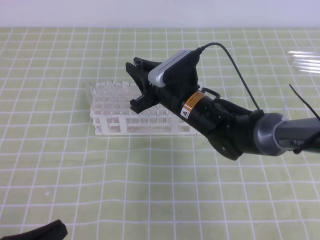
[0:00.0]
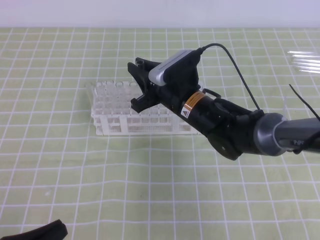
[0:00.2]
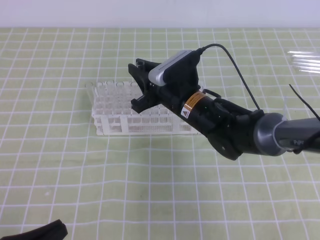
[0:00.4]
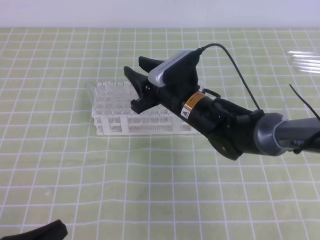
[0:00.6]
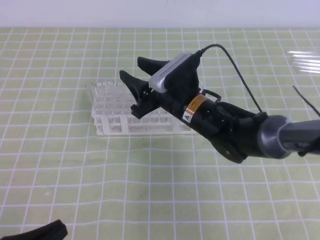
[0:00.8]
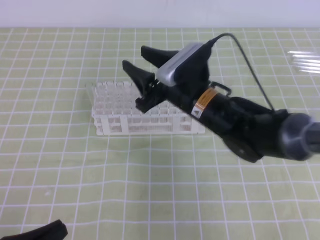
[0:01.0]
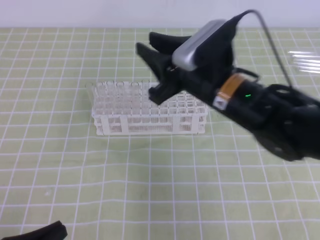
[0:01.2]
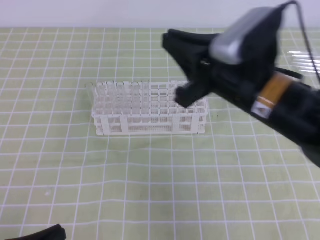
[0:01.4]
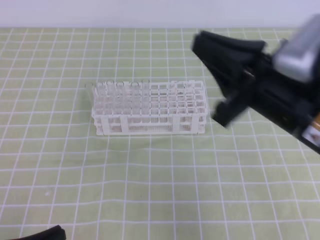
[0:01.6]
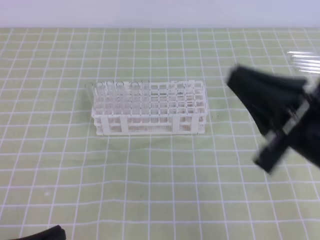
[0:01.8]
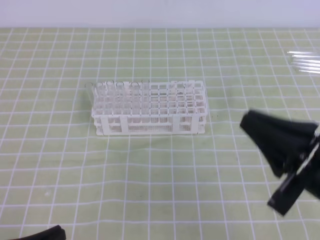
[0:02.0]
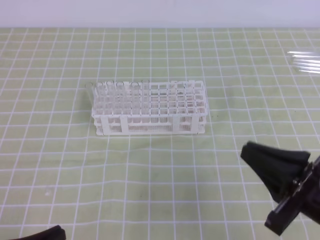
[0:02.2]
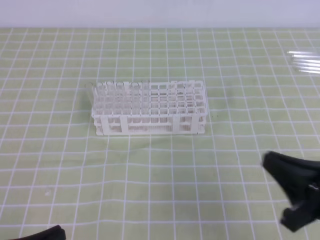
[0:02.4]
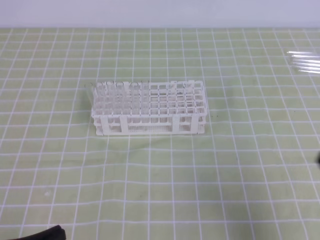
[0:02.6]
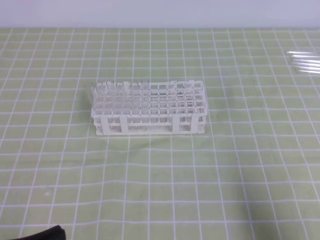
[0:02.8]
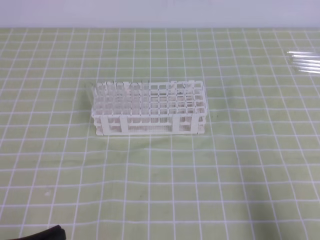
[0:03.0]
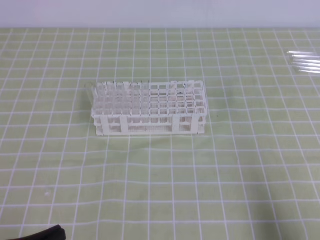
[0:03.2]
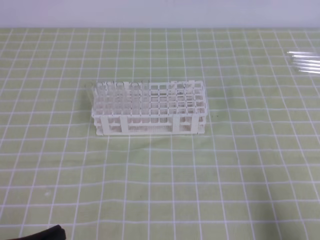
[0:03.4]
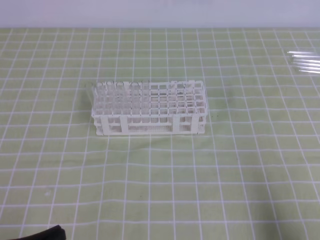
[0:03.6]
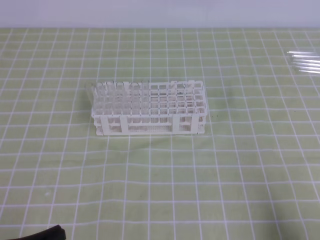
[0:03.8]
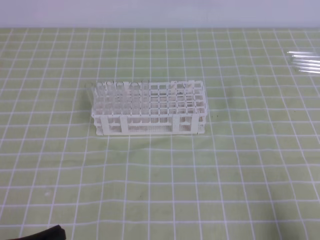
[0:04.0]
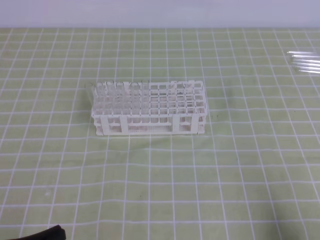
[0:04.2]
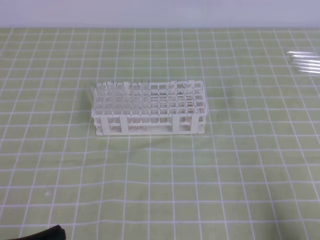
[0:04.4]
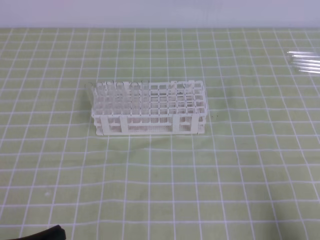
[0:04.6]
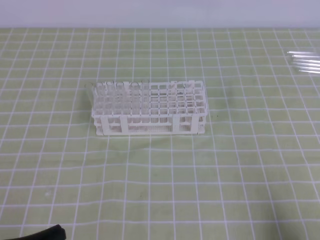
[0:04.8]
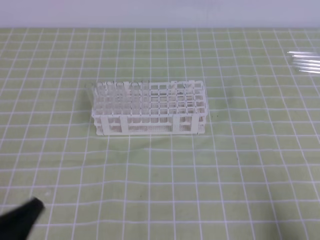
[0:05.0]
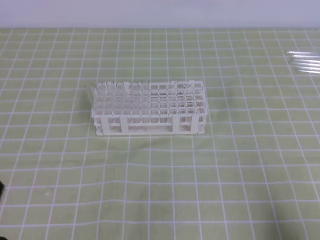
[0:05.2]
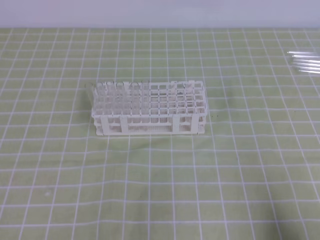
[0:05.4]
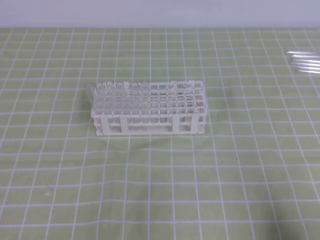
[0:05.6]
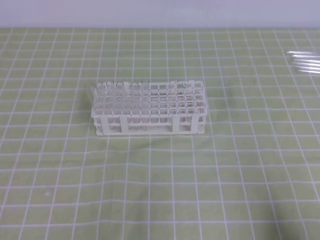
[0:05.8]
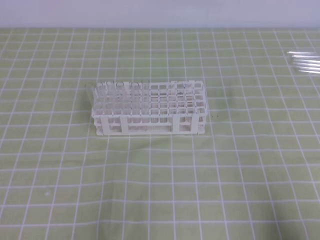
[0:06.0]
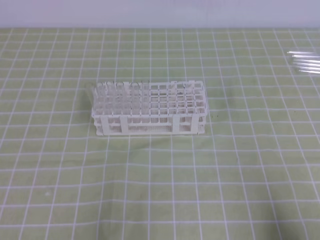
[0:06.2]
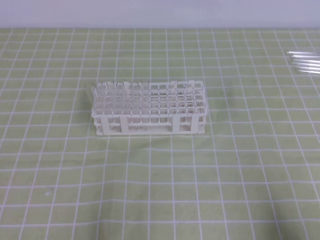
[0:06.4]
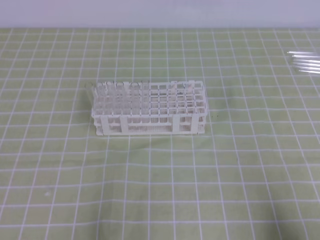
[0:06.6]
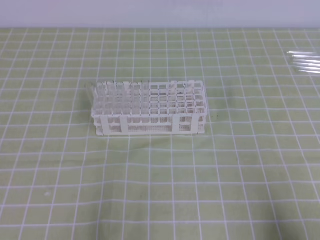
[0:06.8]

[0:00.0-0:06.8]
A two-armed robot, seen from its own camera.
0:00.0 to 0:01.4: The right gripper moves upward, backward and to the right, roughly 15 cm, and opens, then closes again.
0:01.4 to 0:02.8: The right gripper is displaced to the right, backward and downward by approximately 25 cm.
0:02.8 to 0:04.0: The right gripper shifts by some 5 cm.

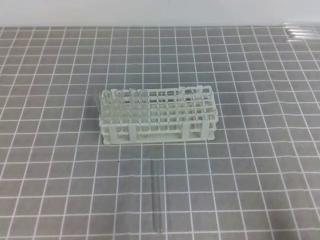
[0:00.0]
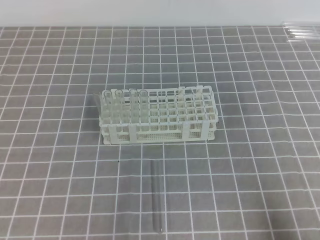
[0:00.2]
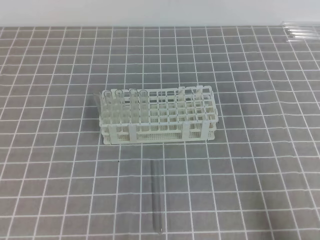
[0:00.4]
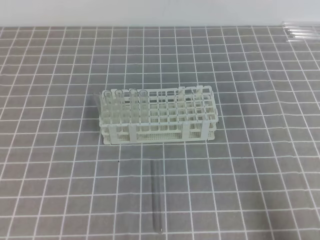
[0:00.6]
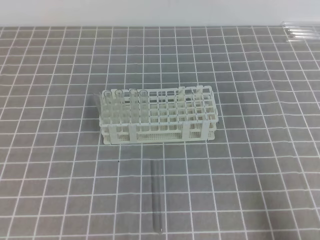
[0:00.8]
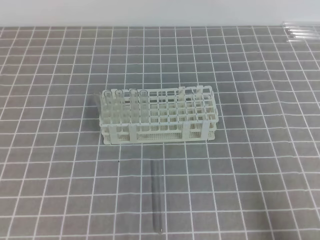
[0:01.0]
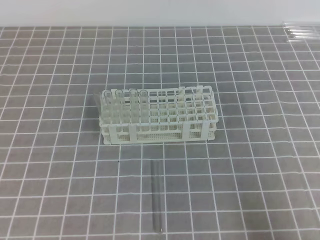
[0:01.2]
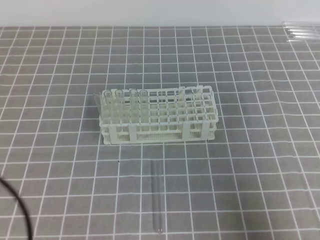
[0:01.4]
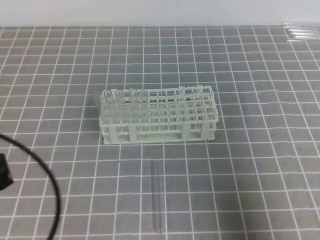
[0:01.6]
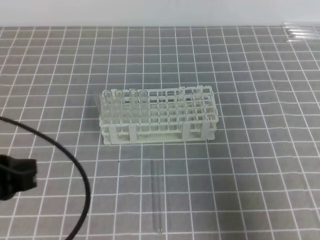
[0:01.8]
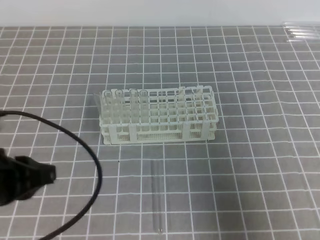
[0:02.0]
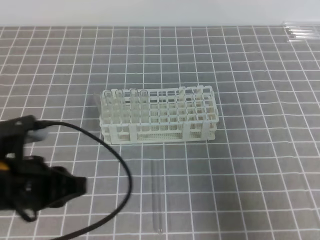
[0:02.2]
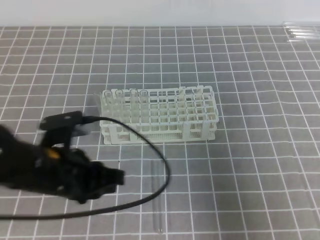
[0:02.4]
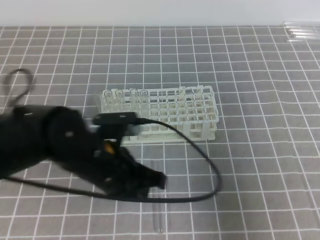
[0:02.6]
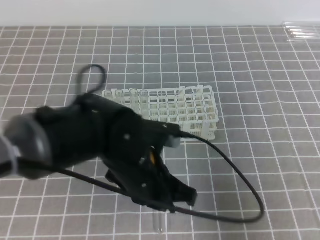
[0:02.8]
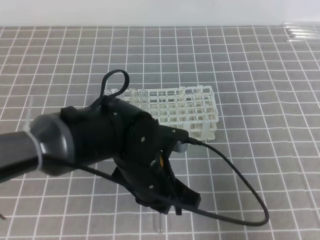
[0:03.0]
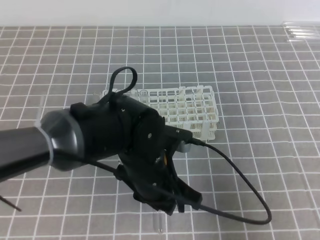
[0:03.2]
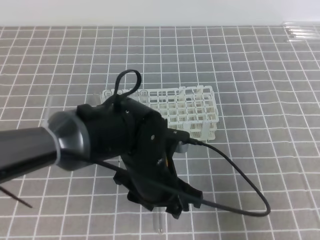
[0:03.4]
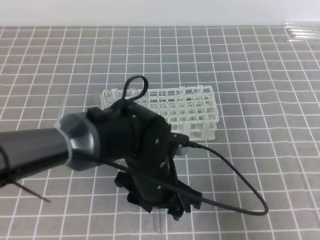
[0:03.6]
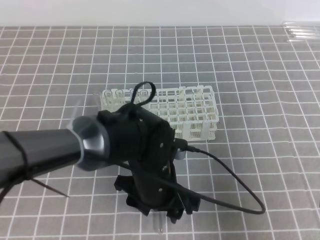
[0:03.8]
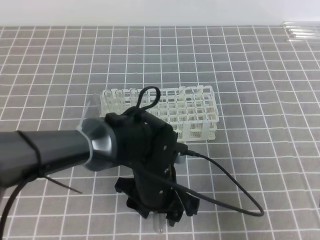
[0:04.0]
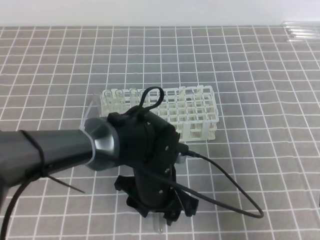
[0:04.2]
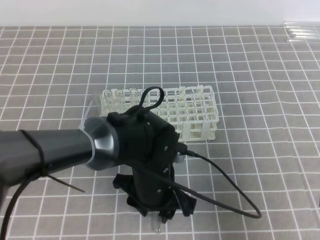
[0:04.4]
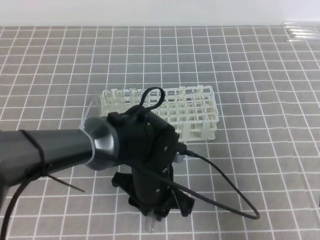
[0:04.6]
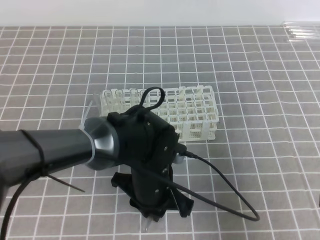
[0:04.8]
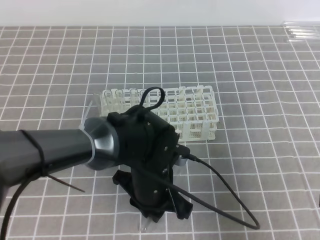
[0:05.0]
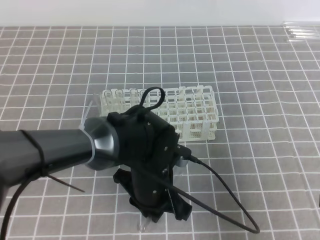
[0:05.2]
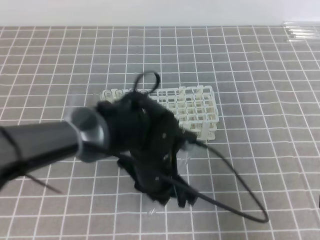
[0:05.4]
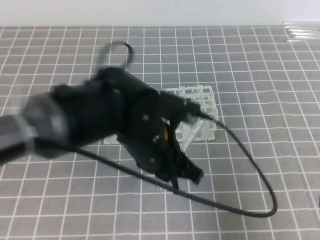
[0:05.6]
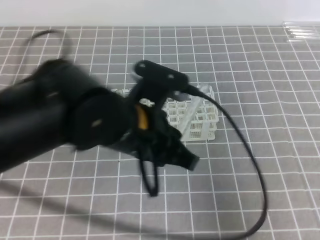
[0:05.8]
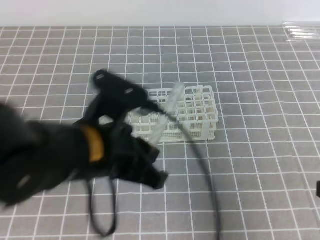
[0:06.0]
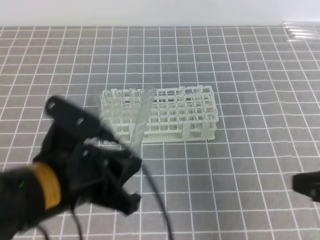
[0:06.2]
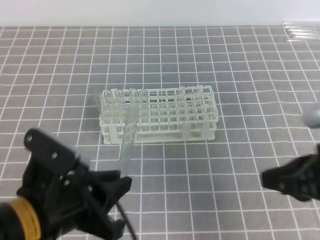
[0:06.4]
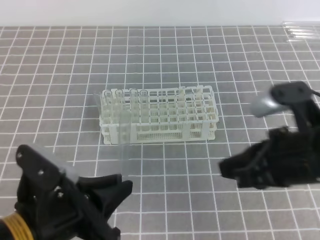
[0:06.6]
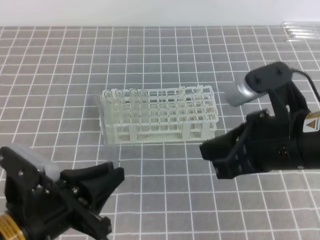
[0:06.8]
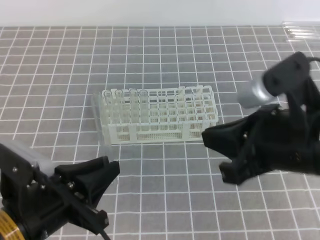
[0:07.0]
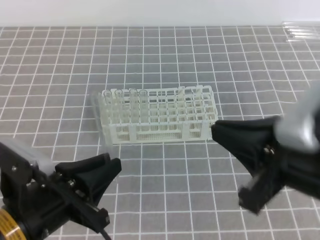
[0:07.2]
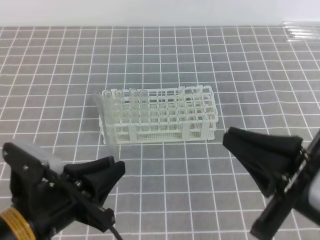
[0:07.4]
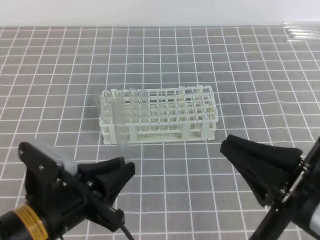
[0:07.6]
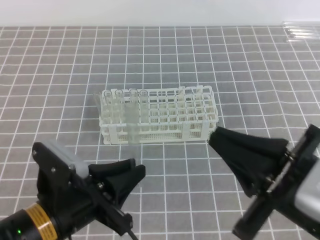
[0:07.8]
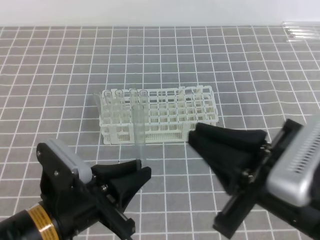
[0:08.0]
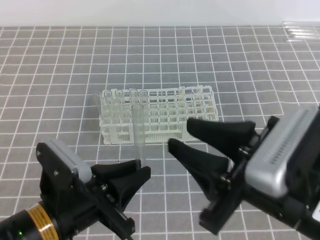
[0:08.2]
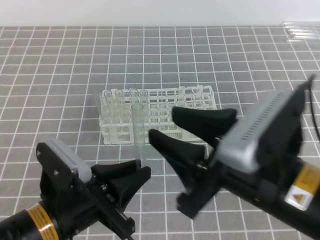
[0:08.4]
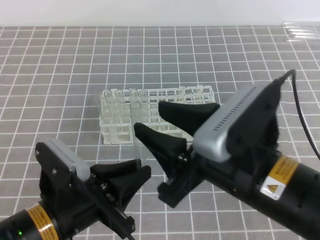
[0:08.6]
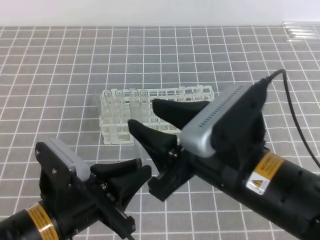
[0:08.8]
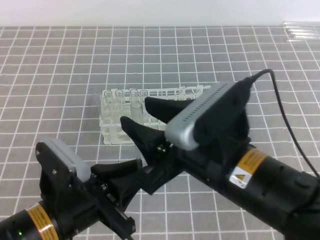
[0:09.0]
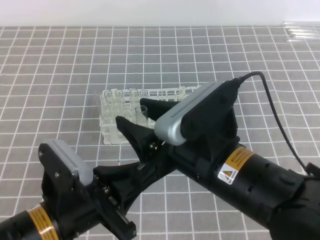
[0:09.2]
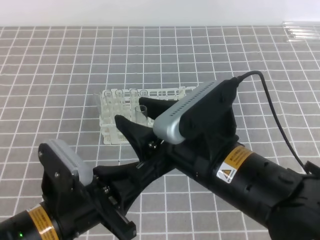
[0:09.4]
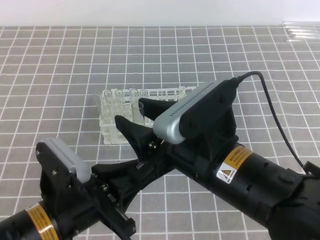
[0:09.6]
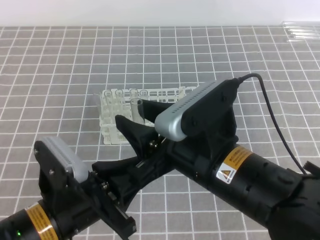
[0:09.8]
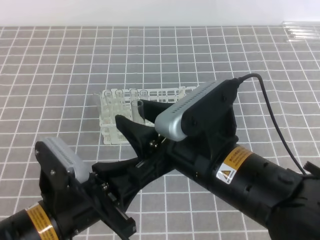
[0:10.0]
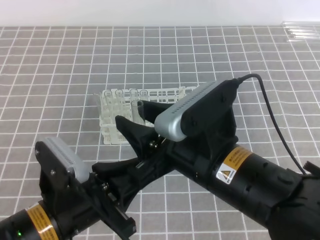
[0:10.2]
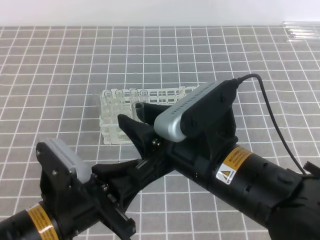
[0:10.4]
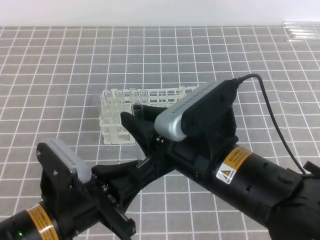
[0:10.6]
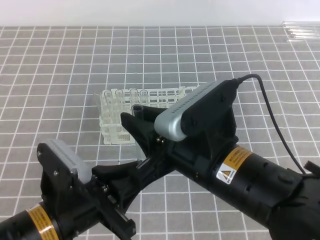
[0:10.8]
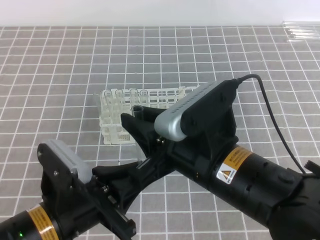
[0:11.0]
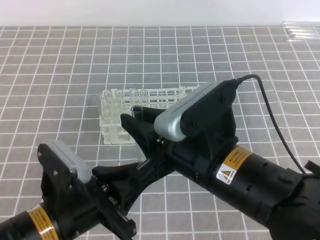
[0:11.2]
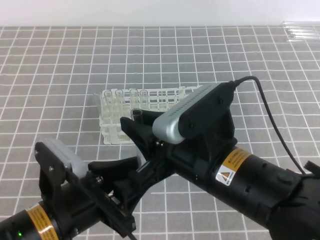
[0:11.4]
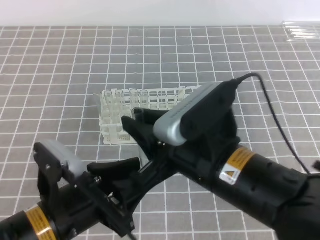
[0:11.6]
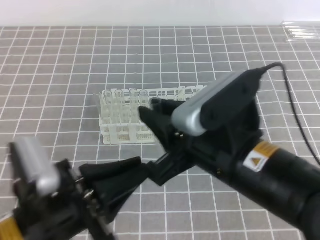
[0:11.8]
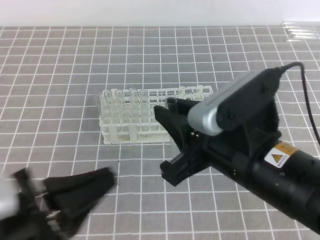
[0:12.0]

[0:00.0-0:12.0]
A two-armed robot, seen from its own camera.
0:00.0 to 0:01.6: The right gripper moves upward, approximately 10 cm. Meanwhile the left gripper travels upward and forward by about 10 cm.
0:01.6 to 0:03.0: The left gripper goes some 25 cm to the right and forward.
0:03.0 to 0:04.4: The left gripper heads downward, covering approximately 5 cm, and opens its fingers.
0:04.4 to 0:06.0: The left gripper goes approximately 15 cm upward and to the left, and closes.
0:06.0 to 0:07.6: The right gripper travels to the left by about 10 cm. Meanwhile the left gripper goes roughly 10 cm downward and to the left.
0:07.6 to 0:09.0: The right gripper is displaced to the left by about 10 cm, and opens up.
0:09.0 to 0:10.4: The grippers move only a little.
0:10.4 to 0:12.0: The right gripper closes up; the left gripper shifts by some 10 cm, and opens, then closes again.

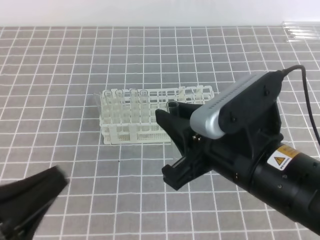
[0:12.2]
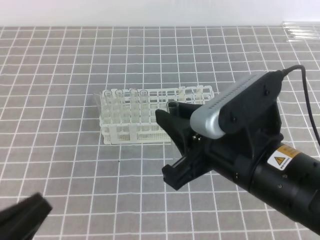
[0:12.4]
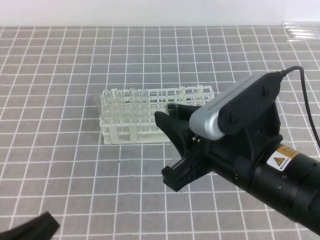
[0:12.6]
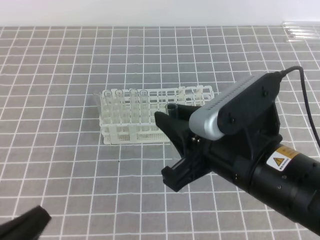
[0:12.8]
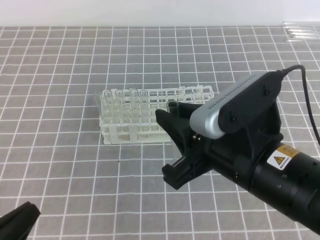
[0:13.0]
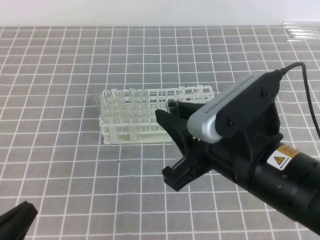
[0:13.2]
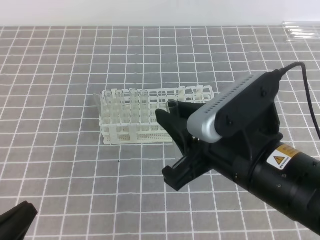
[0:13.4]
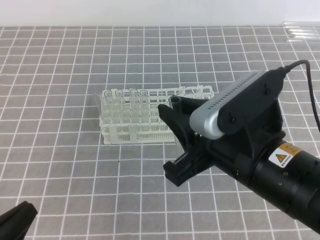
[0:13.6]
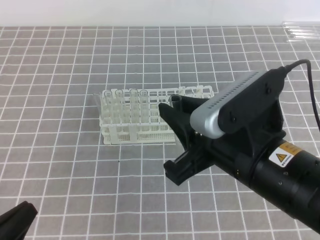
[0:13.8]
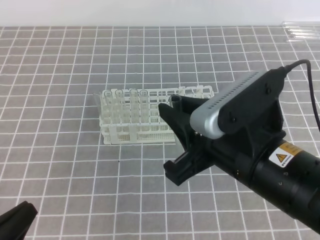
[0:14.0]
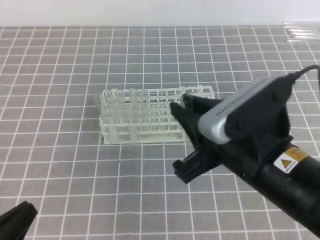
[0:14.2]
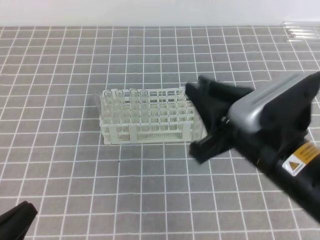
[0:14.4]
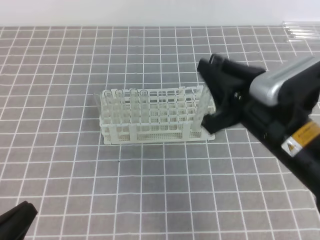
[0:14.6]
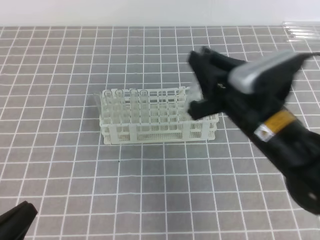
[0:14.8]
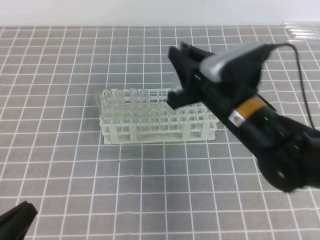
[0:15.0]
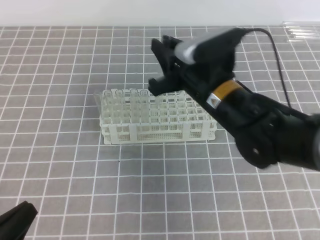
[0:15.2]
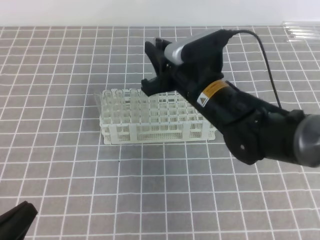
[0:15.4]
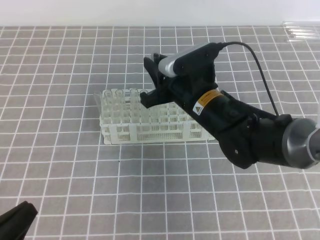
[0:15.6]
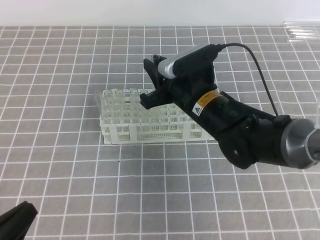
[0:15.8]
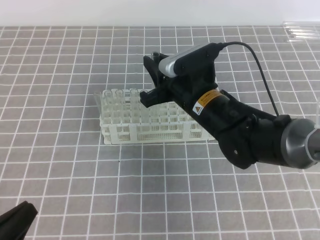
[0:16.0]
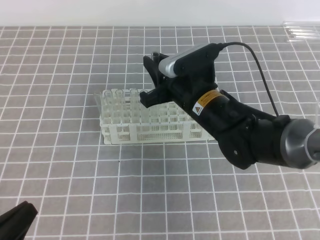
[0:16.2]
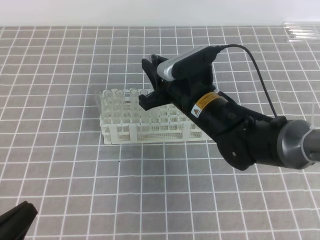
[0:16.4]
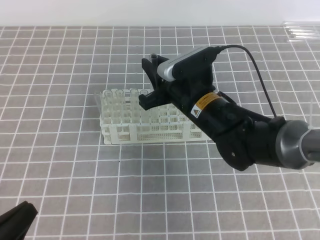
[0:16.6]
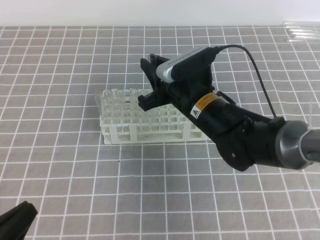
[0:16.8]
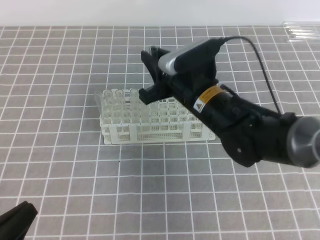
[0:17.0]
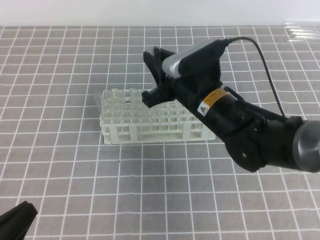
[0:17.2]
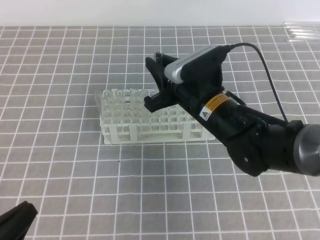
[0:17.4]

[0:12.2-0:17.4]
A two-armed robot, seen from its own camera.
0:12.2 to 0:14.0: The left gripper heads downward, covering about 5 cm.
0:14.0 to 0:15.6: The right gripper moves forward and downward, about 20 cm.
0:15.6 to 0:17.4: The grippers make only small movements.
